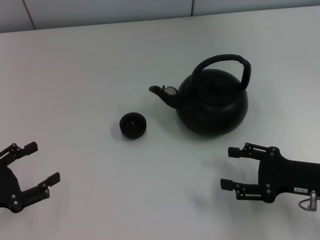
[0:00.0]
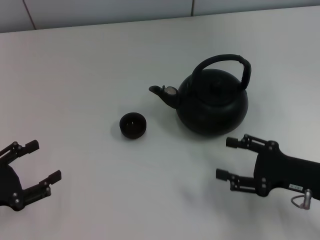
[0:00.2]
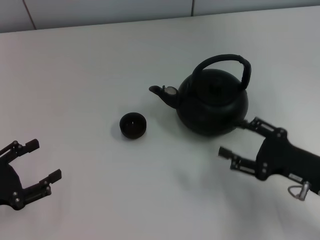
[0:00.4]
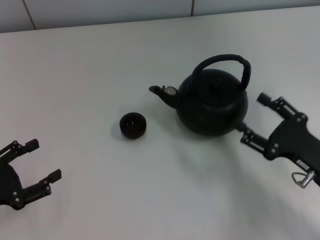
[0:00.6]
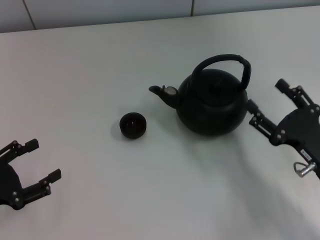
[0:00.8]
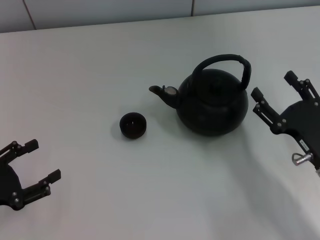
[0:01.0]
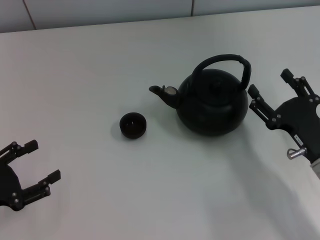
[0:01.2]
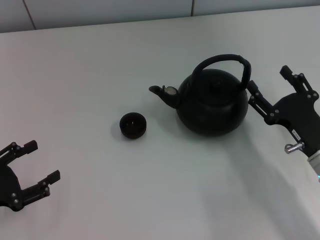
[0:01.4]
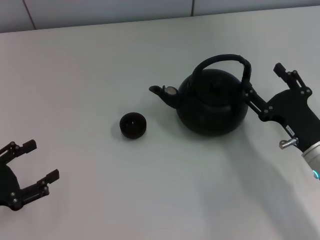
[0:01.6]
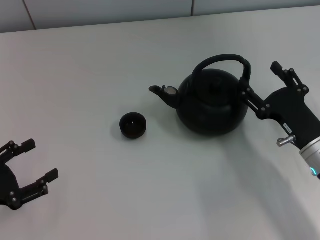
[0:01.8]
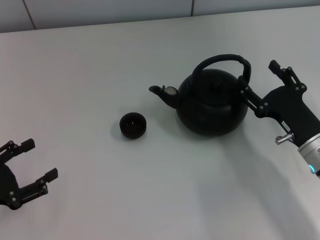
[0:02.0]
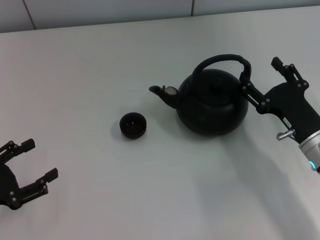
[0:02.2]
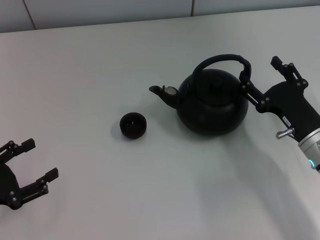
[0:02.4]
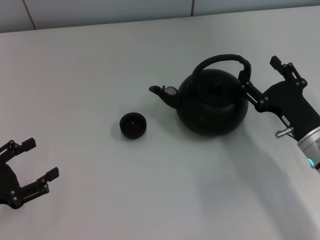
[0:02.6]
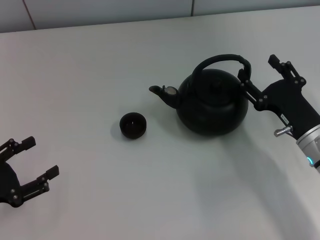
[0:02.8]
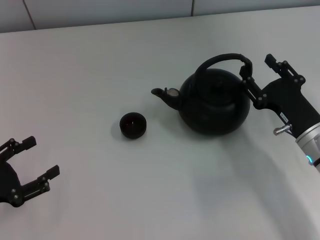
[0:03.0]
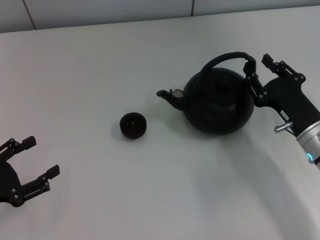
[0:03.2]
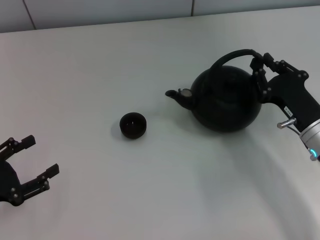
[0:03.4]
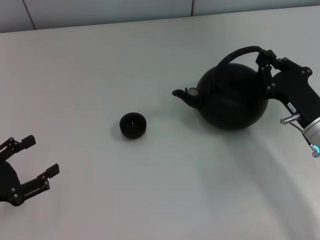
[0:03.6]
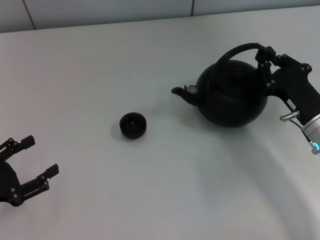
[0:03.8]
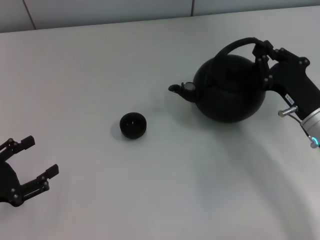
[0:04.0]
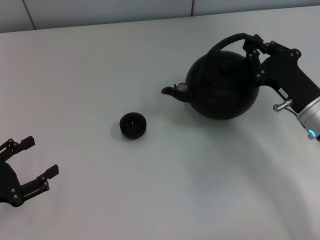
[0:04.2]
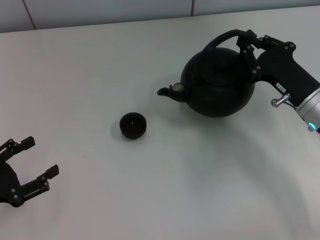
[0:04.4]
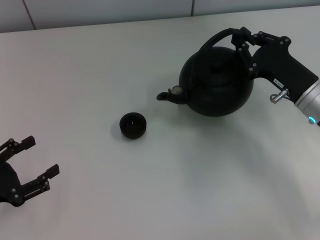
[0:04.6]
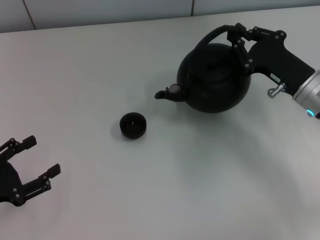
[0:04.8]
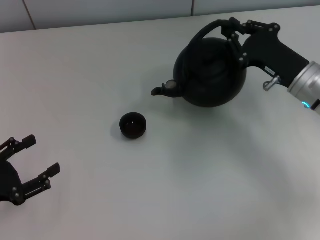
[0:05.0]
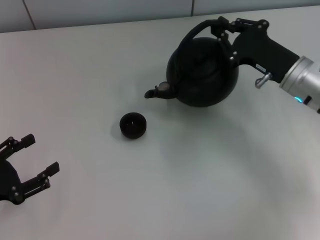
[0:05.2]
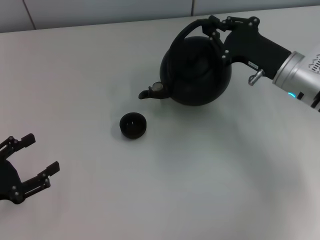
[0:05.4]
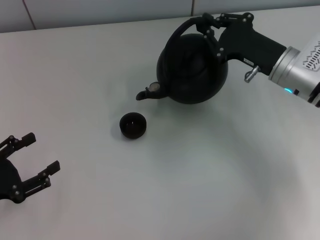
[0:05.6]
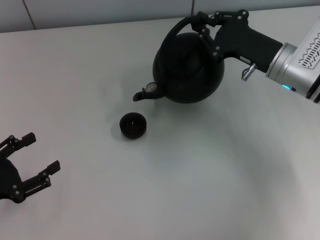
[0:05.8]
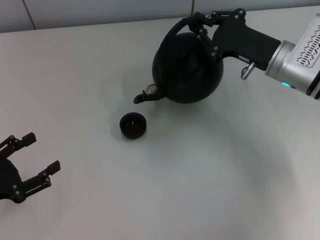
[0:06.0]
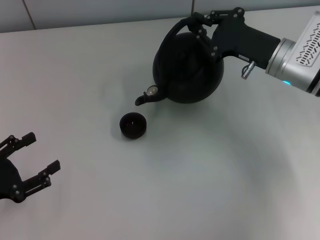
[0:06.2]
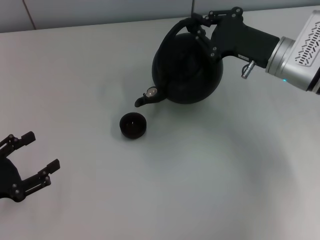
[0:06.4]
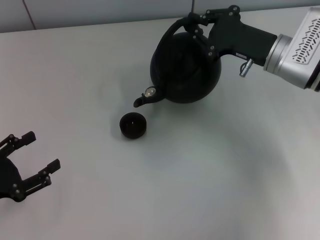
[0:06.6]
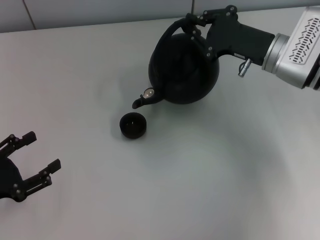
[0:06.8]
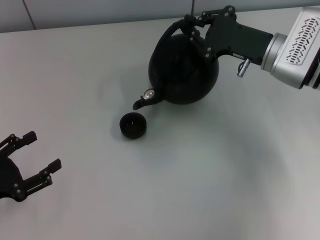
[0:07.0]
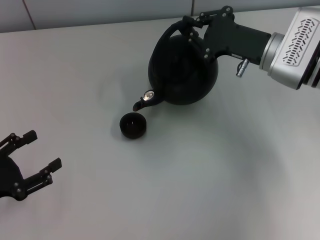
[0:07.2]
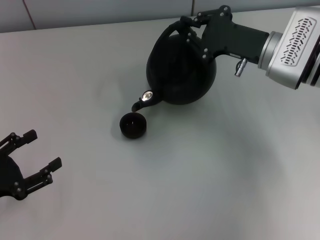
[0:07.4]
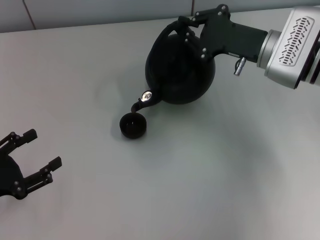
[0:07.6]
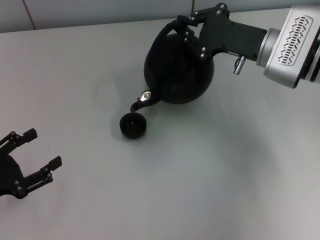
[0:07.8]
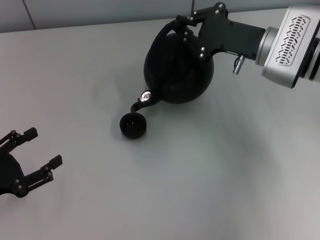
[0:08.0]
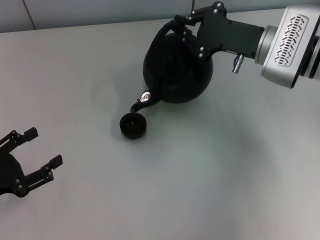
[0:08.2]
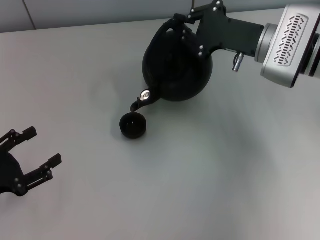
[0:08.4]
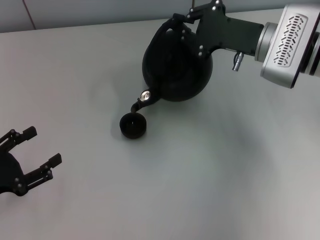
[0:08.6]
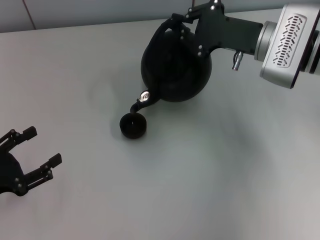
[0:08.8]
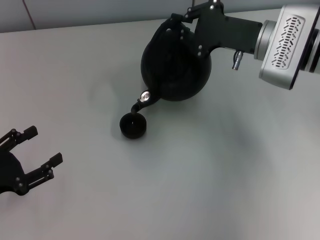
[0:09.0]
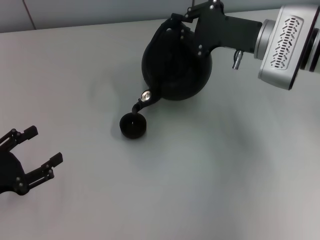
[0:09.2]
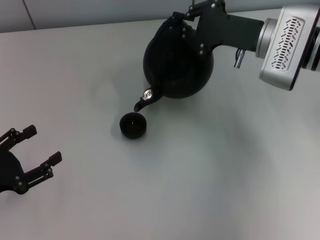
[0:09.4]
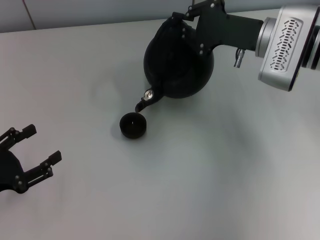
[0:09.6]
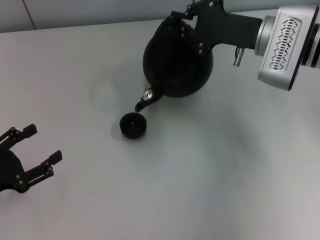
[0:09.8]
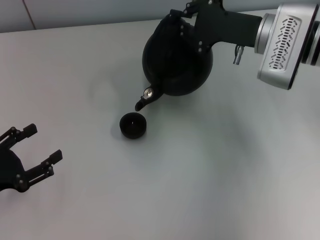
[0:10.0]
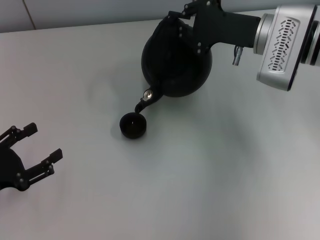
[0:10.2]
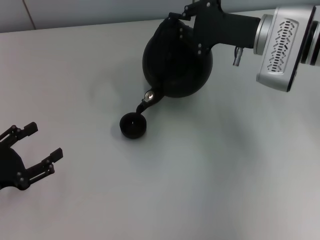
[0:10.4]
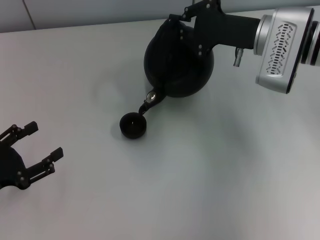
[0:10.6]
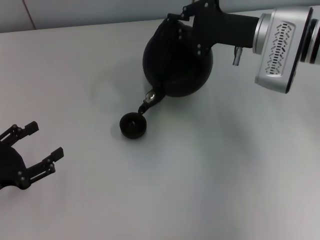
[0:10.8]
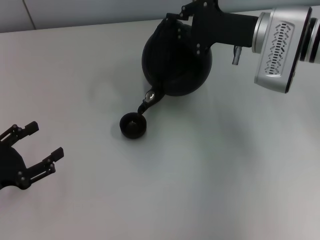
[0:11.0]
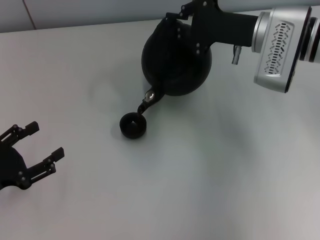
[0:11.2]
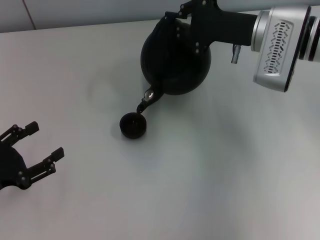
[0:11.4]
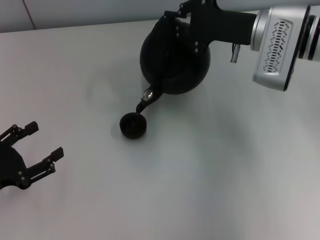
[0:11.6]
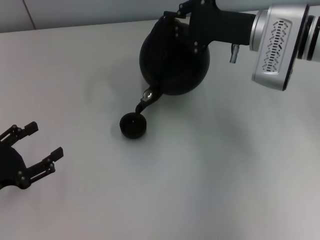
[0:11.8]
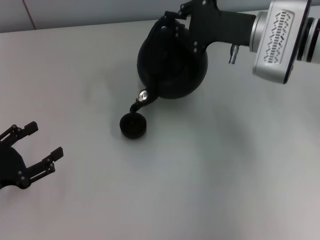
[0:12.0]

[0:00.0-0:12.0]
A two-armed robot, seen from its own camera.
Task of the whole recording: Grasp the handle of the teapot with one hand and pour tea into the teacup.
Step, 0:00.0 to 0:04.4: Pick up the teapot with the right gripper.
0:01.6 to 0:03.0: The grippers make only small movements.
0:03.0 to 0:04.4: The right gripper changes place by roughly 5 cm, and closes its fingers.
0:04.4 to 0:06.0: The right gripper heads forward, covering about 5 cm.
0:06.0 to 0:07.6: The grippers make only small movements.
0:07.6 to 0:10.4: There are only small adjustments of the grippers.
0:10.4 to 0:12.0: There are only small adjustments of the grippers.

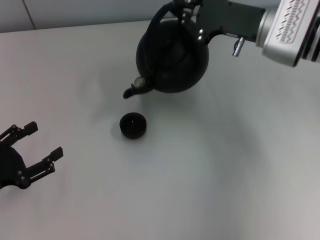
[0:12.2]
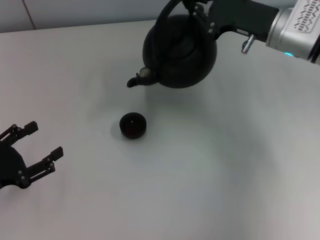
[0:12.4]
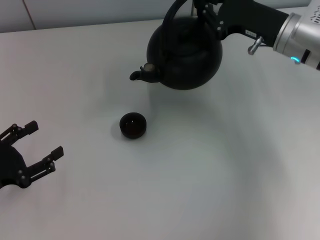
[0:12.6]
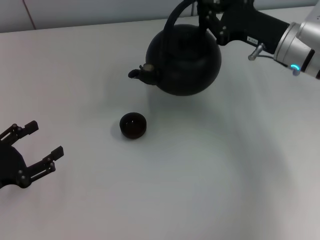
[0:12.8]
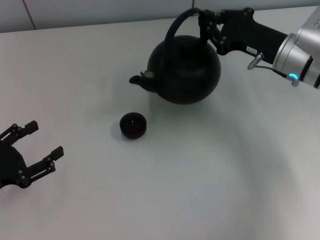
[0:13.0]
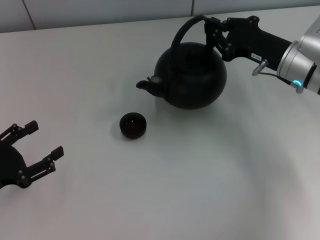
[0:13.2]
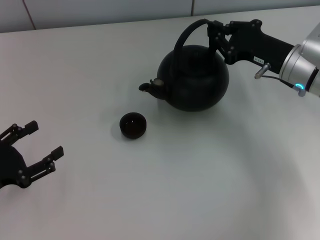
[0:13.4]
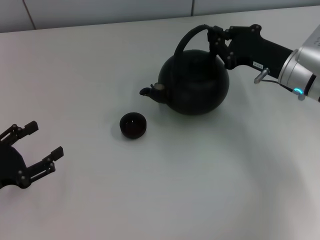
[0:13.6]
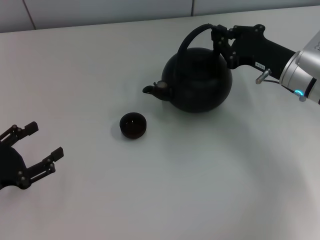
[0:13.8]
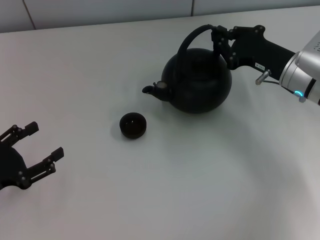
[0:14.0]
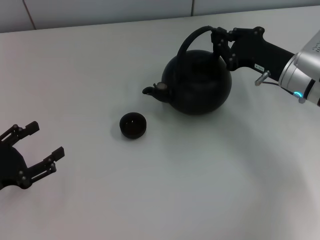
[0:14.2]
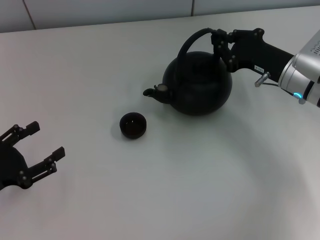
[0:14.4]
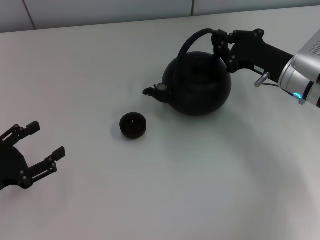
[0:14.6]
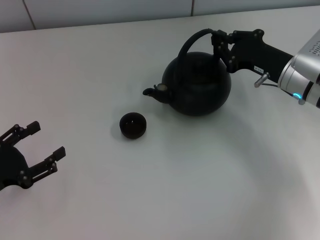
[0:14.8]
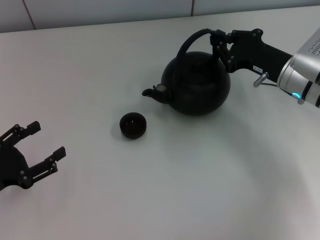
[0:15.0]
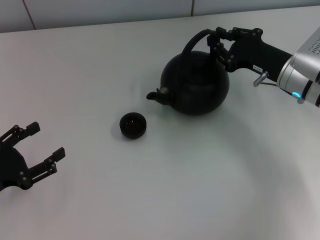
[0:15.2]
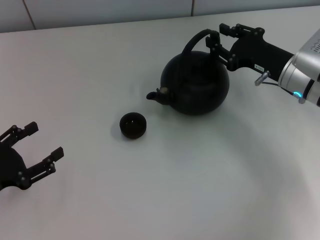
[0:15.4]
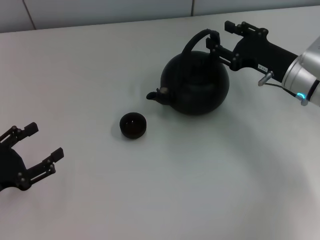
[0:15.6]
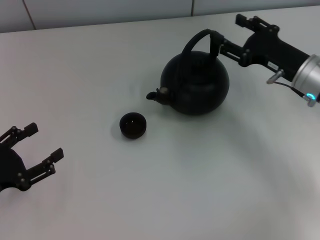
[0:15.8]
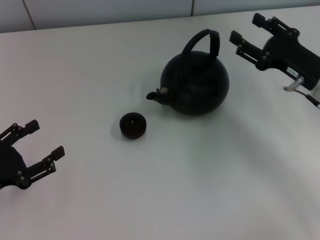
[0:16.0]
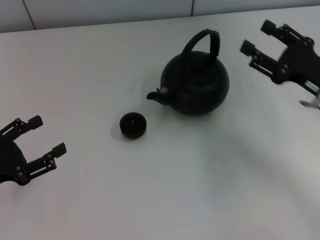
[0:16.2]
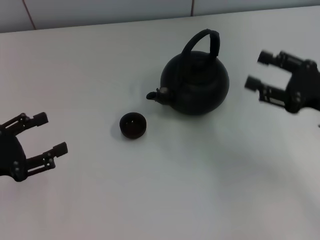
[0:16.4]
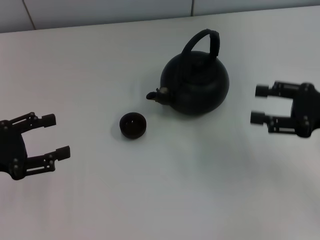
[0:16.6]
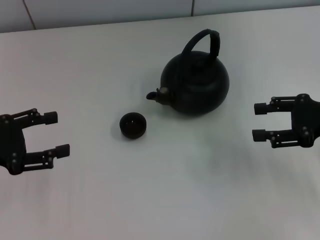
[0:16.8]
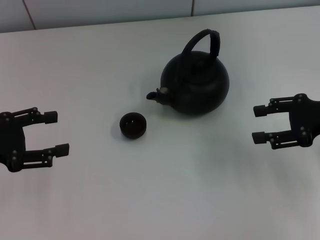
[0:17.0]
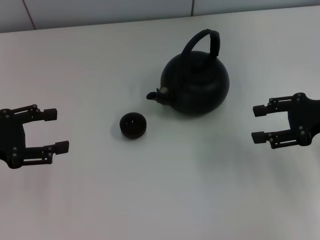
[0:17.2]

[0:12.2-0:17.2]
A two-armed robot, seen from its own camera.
Task of the whole recording: Grasp the handle of the teapot with one hand and pour tea into the teacup.
Step, 0:12.4 to 0:16.0: Put down the teapot with the right gripper.
0:12.2 to 0:13.8: The right gripper heads downward, covering about 5 cm.
0:13.8 to 0:15.6: The right gripper opens up.
0:15.6 to 0:17.2: The right gripper heads to the right and backward, covering about 10 cm, and opens. Meanwhile the left gripper heads upward and forward, covering about 10 cm.

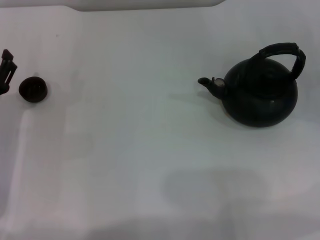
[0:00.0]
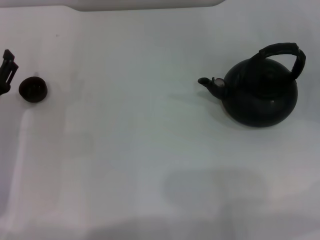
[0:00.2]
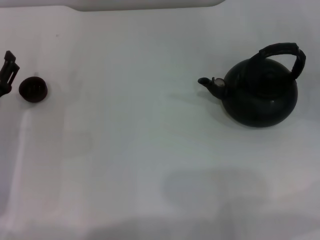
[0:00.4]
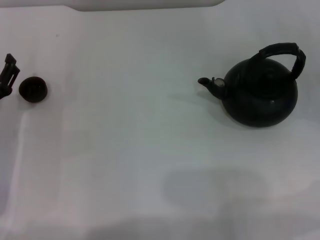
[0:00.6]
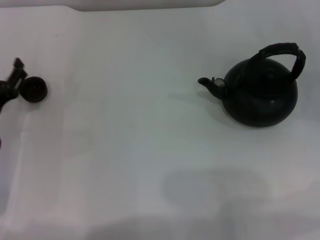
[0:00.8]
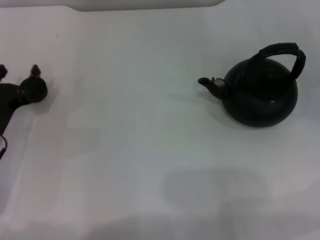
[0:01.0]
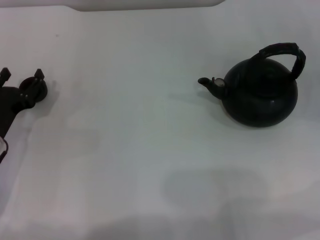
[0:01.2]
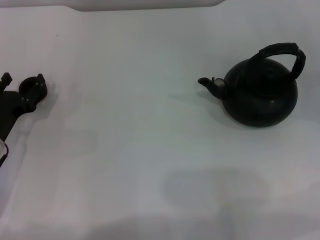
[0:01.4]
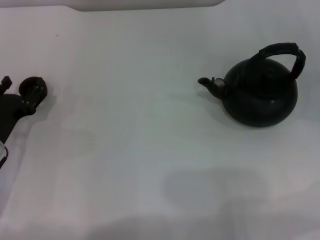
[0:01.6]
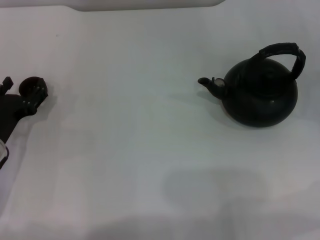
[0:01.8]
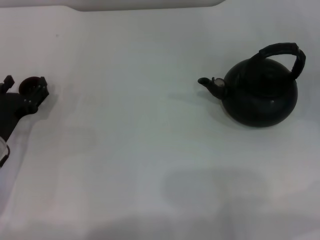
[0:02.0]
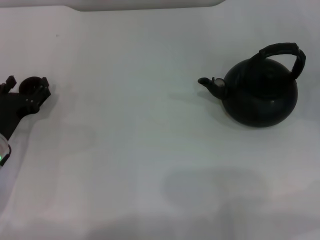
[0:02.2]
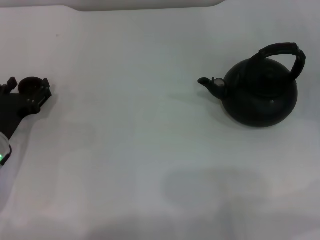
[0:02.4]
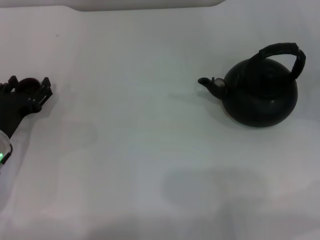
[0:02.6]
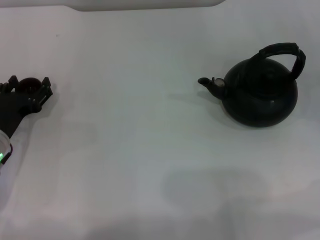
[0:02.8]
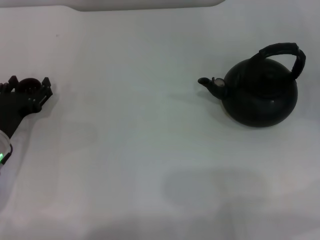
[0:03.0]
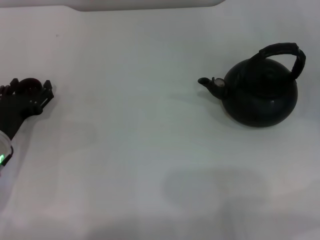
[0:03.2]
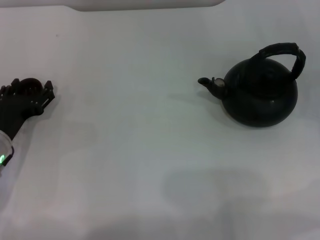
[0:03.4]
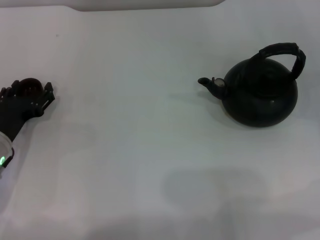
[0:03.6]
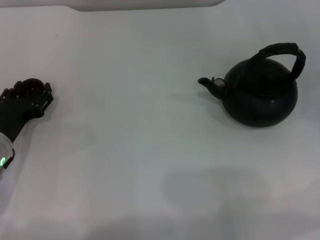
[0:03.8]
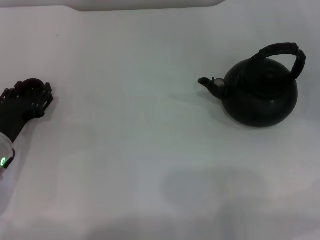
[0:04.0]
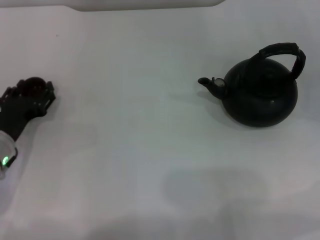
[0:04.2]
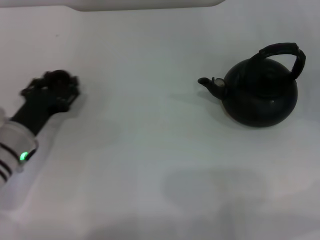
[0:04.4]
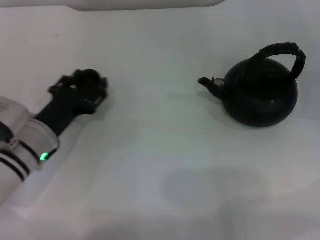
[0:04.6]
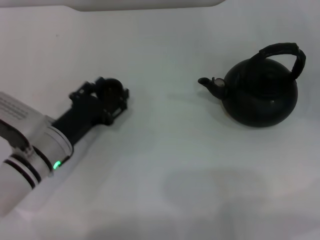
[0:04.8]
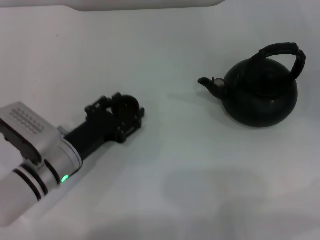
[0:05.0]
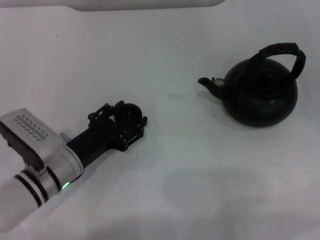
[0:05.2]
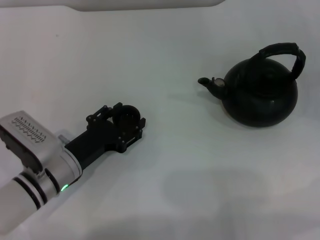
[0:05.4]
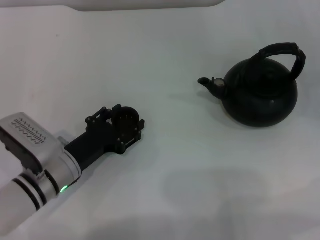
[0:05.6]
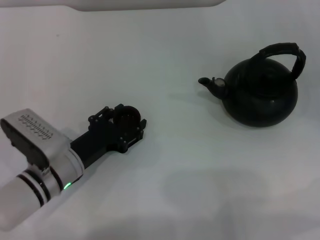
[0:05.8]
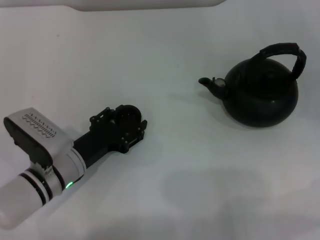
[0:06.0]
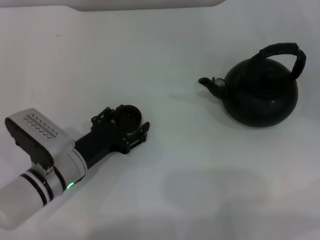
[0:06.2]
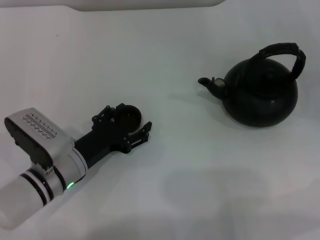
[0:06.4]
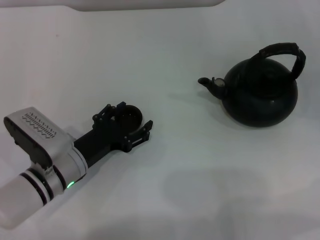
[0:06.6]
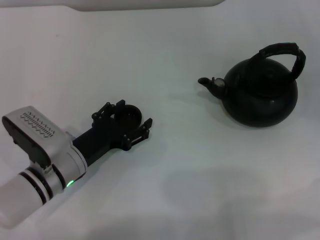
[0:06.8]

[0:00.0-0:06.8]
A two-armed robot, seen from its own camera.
Task of the whole recording: Grasp the handle of the teapot with one hand and pour tea into the teacup.
Step, 0:00.0 to 0:04.6: Pick up the teacup with the left gripper.
0:00.0 to 0:01.4: The grippers make only small movements.
0:01.4 to 0:02.8: The two grippers keep their place.
0:02.8 to 0:04.0: The left gripper closes.
0:04.0 to 0:05.4: The left gripper moves to the right, some 10 cm.
0:05.4 to 0:06.8: The left gripper opens.
